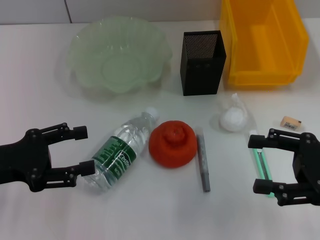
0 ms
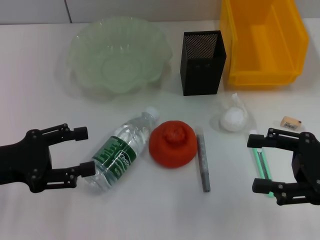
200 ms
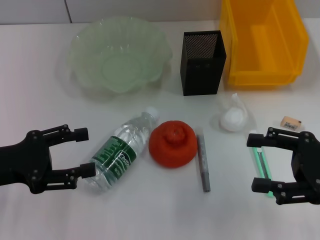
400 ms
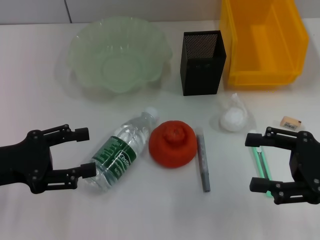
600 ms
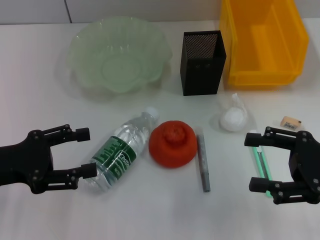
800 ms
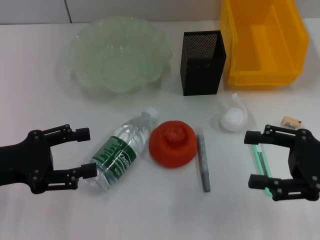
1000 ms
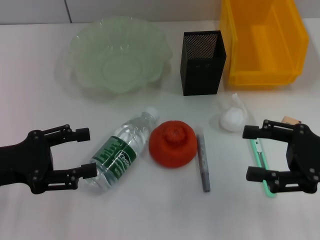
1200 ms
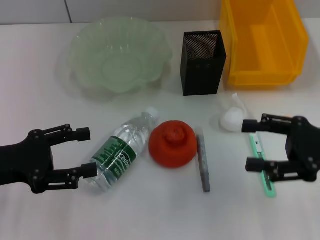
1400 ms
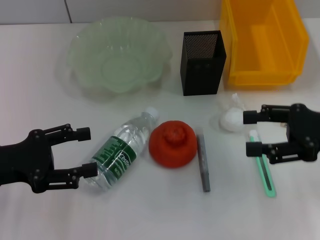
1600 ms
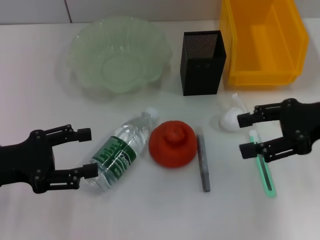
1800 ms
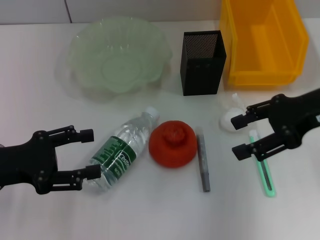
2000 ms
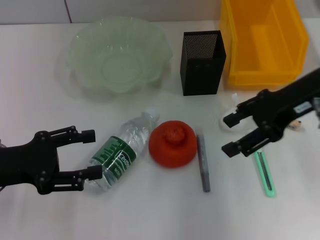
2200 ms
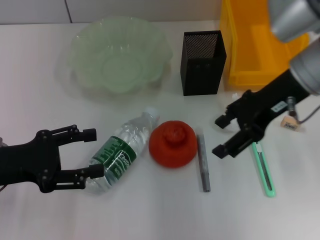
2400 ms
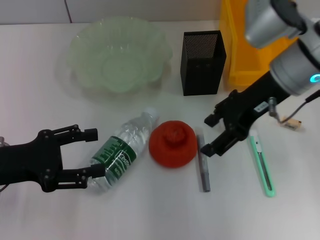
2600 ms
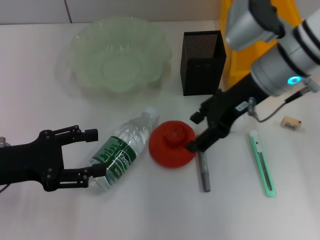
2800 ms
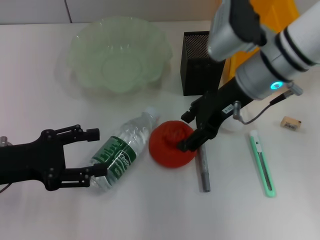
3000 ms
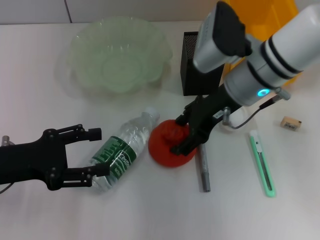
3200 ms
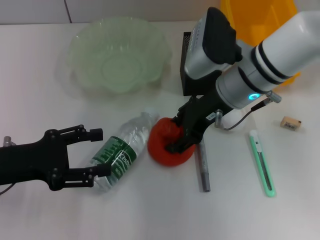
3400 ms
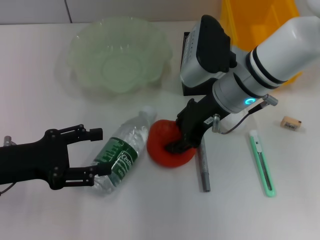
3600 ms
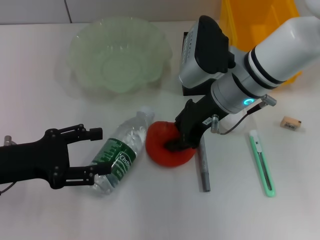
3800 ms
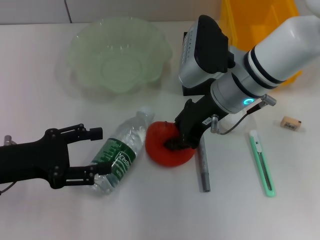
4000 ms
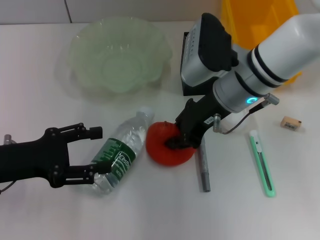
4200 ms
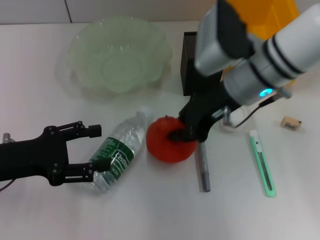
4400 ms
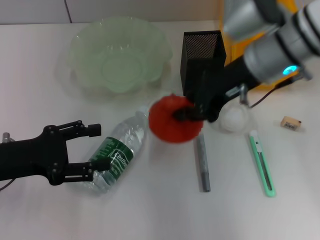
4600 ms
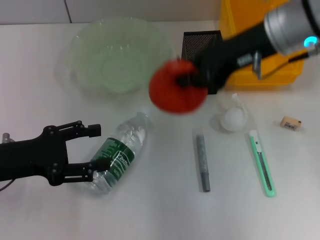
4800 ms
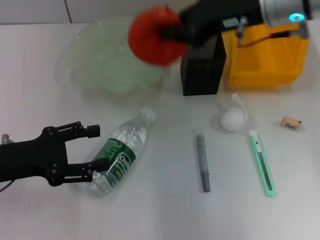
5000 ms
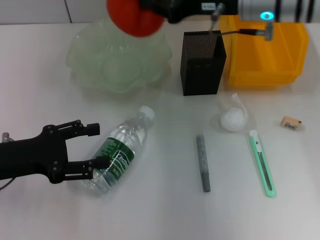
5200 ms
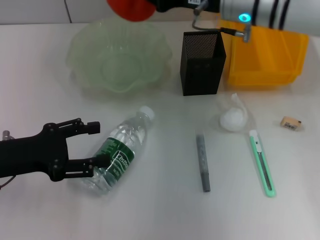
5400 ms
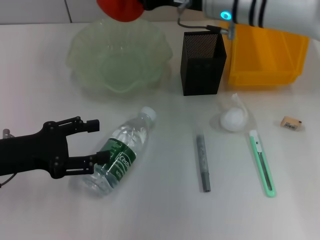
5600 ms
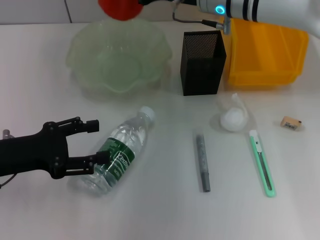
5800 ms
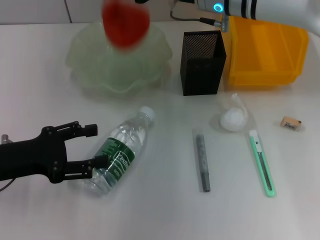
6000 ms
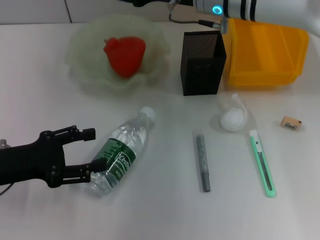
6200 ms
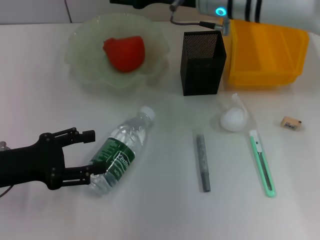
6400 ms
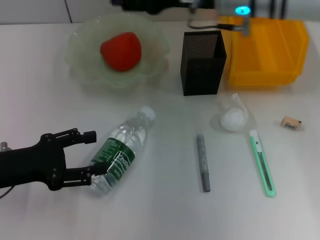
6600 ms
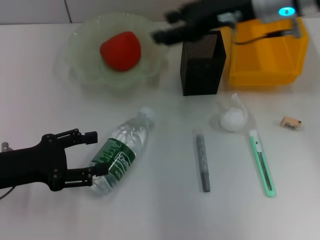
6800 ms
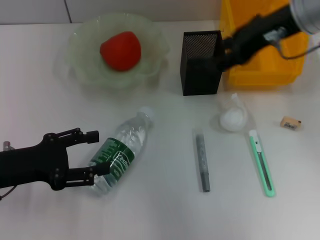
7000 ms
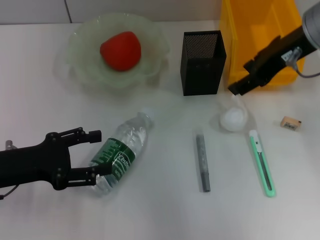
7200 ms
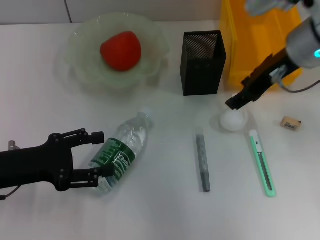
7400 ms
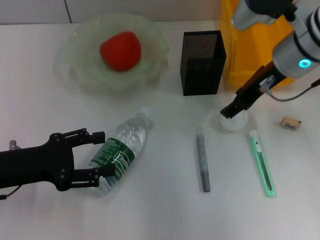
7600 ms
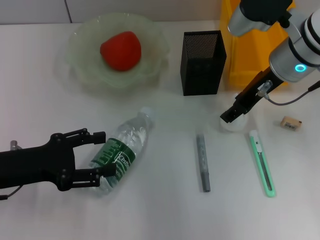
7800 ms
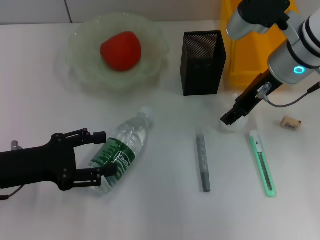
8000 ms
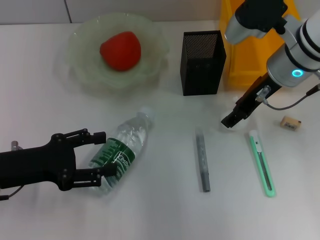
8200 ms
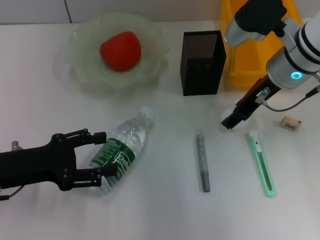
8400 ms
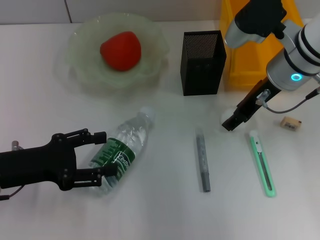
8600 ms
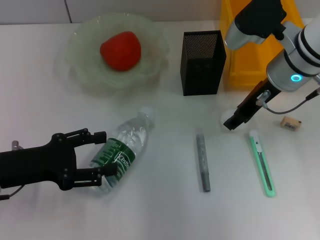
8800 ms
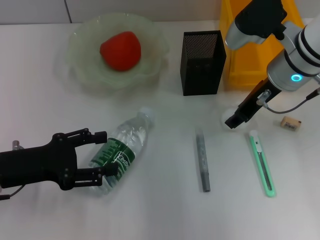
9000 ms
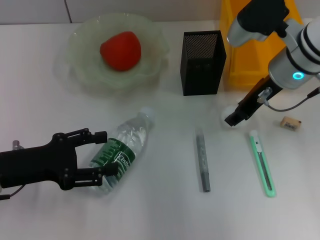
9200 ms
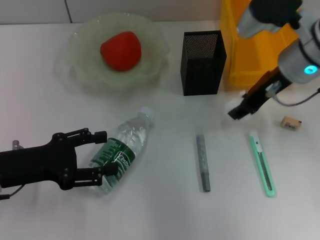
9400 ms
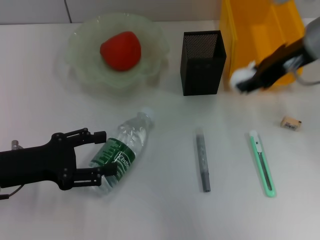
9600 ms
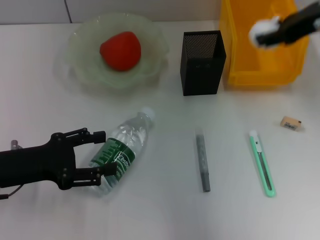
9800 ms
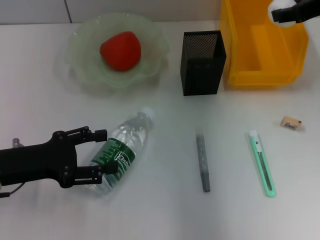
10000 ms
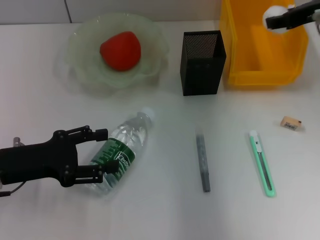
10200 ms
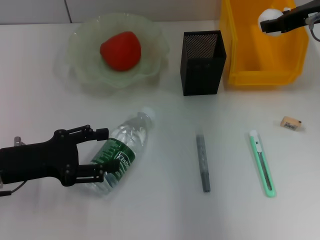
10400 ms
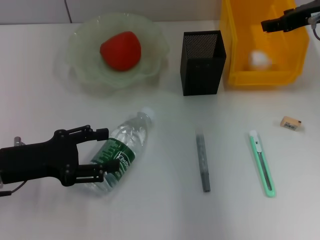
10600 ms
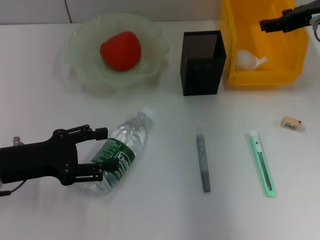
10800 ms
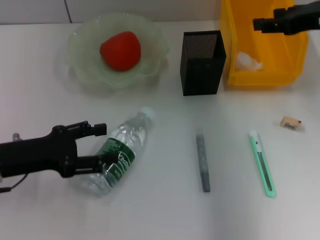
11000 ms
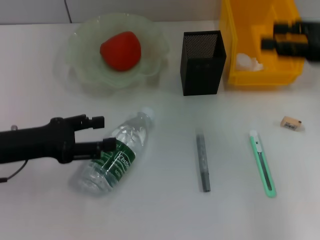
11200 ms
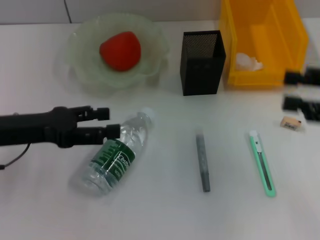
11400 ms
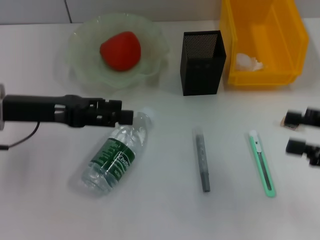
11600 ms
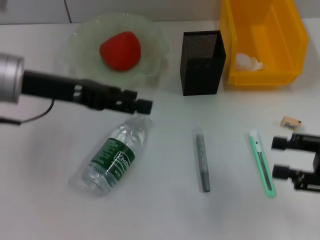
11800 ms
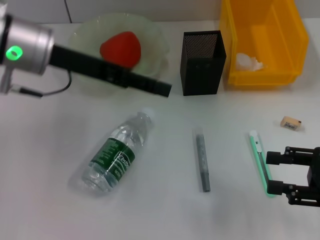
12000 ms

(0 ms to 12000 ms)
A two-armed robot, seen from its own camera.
Step, 0 ms - 3800 ms: Grab the orange with the right hand.
Step, 4000 ms - 6400 ms: Place the orange into the fruit bowl with the right hand.
Step, 6600 ms - 8800 ms: Grab the paper ball with the right hand.
Step, 9000 ms - 10800 ms: Place the paper ball into the trash can with the right hand.
0 ms - 1600 ms: The right gripper heads forward, covering about 5 cm.
1600 ms - 3000 ms: The right gripper is displaced to the left and forward by roughly 20 cm.
3000 ms - 4400 ms: The right gripper closes its fingers.
4400 ms - 6000 ms: The right gripper heads forward, covering roughly 10 cm.
6000 ms - 7600 ms: The right gripper shifts about 10 cm to the right and backward, and opens its fingers.
7600 ms - 9000 ms: The grippers move only a little.
9000 ms - 10400 ms: The right gripper moves to the right and upward, some 10 cm.
10400 ms - 12000 ms: The right gripper goes some 25 cm backward and downward. The left gripper heads upward, forward and to the right, covering some 20 cm.

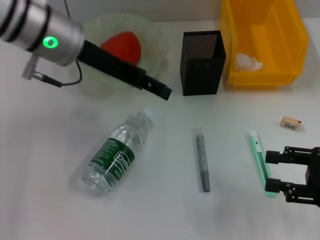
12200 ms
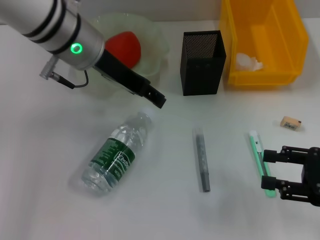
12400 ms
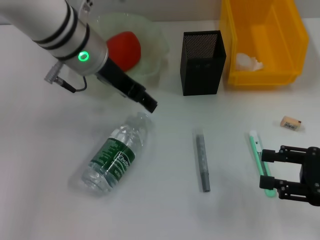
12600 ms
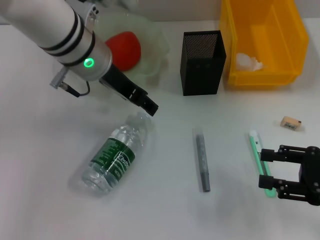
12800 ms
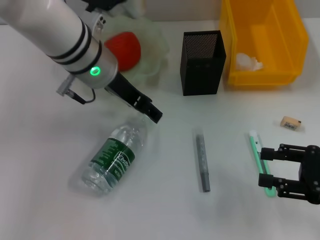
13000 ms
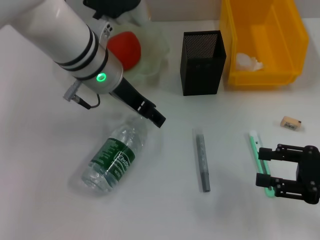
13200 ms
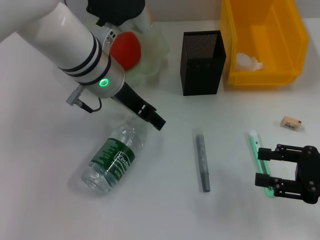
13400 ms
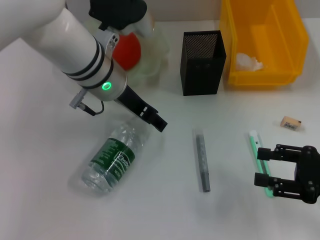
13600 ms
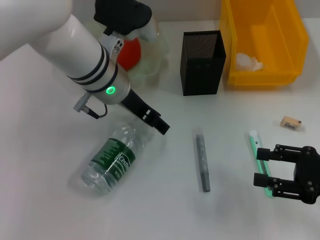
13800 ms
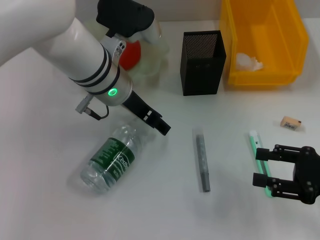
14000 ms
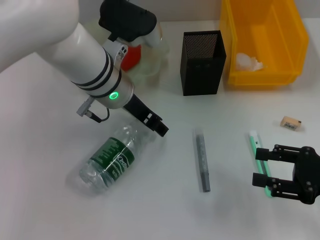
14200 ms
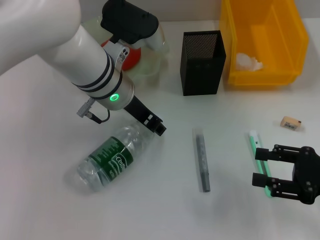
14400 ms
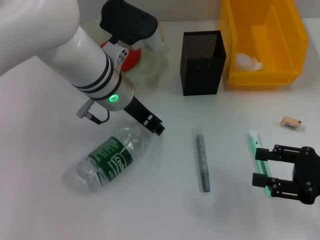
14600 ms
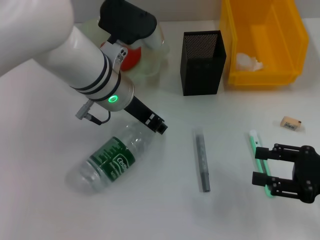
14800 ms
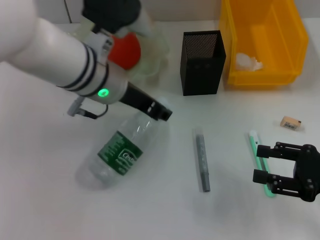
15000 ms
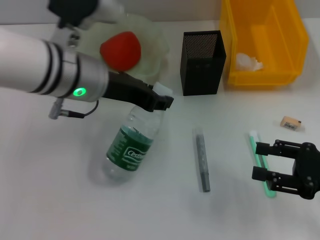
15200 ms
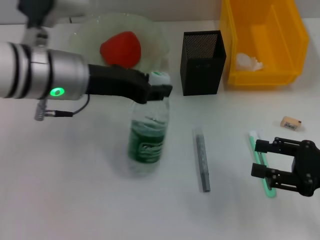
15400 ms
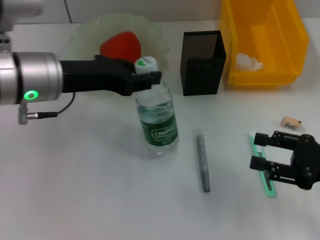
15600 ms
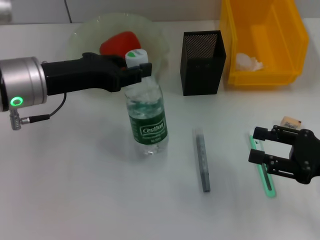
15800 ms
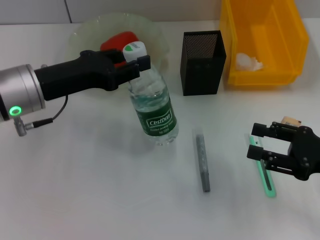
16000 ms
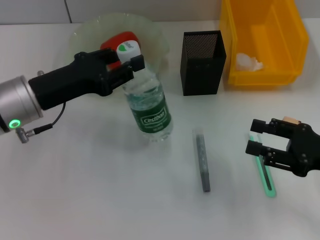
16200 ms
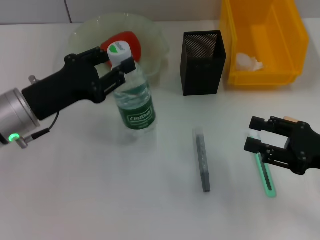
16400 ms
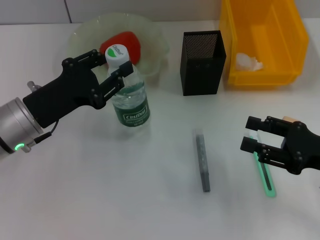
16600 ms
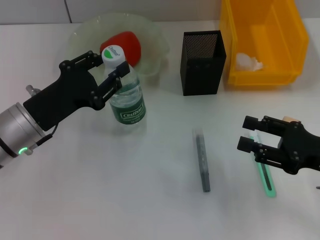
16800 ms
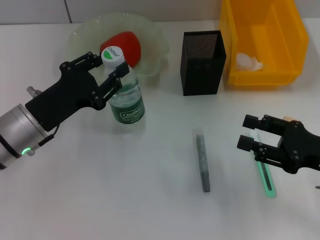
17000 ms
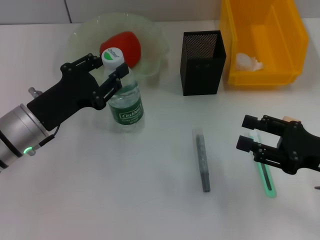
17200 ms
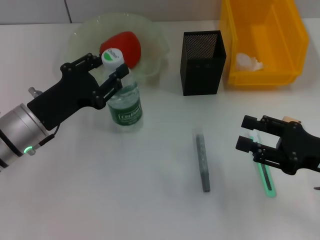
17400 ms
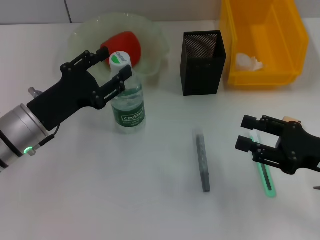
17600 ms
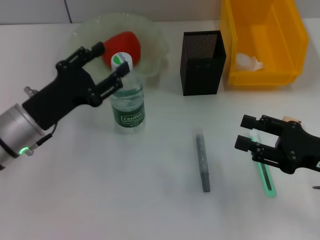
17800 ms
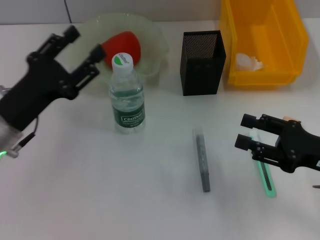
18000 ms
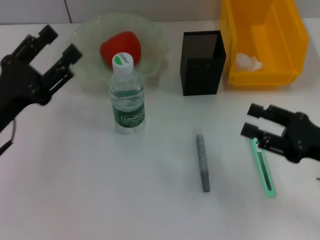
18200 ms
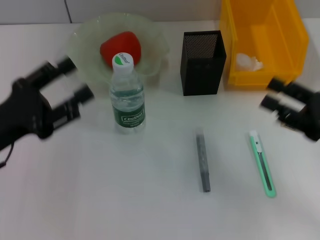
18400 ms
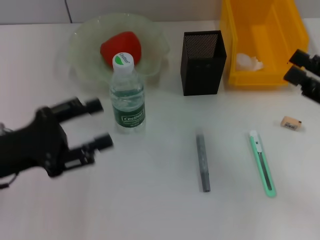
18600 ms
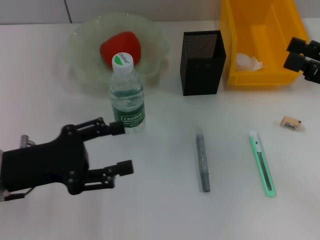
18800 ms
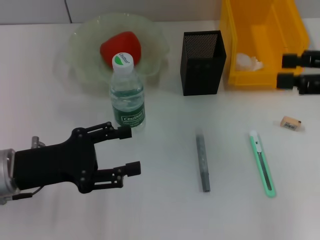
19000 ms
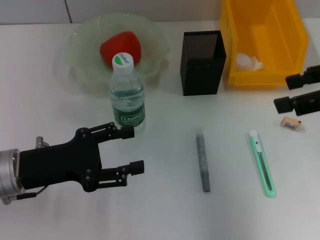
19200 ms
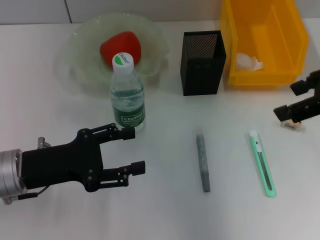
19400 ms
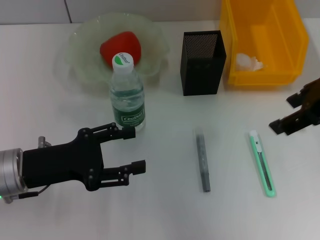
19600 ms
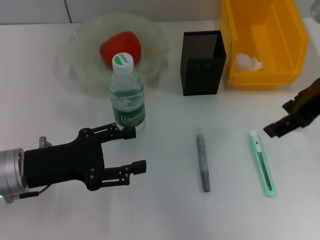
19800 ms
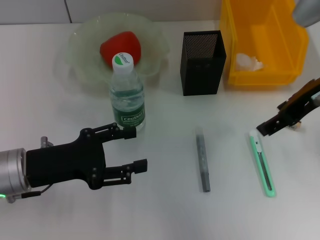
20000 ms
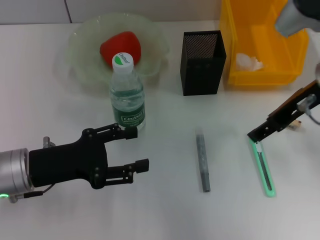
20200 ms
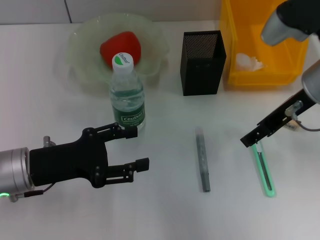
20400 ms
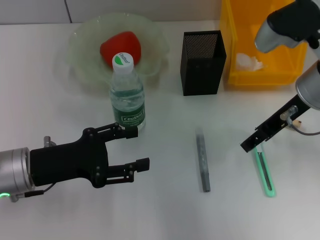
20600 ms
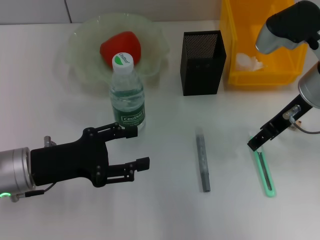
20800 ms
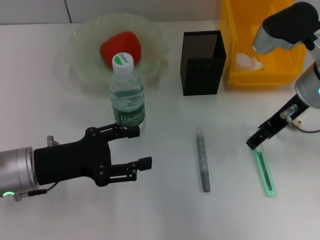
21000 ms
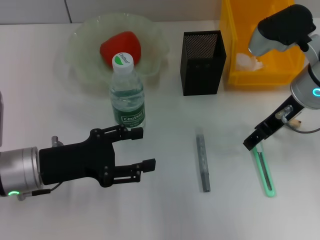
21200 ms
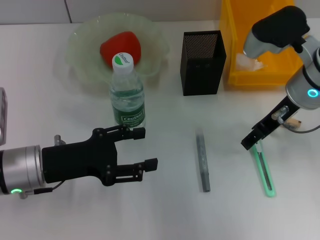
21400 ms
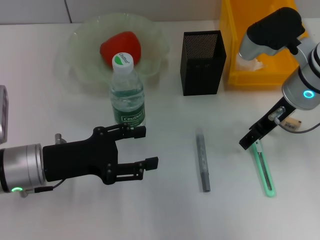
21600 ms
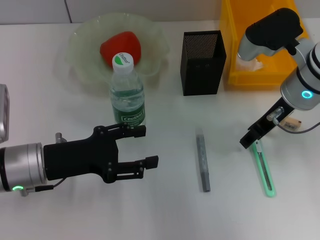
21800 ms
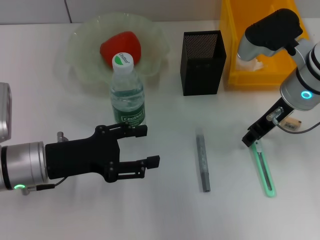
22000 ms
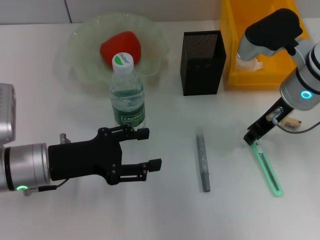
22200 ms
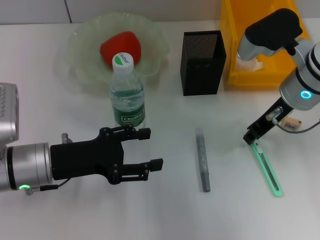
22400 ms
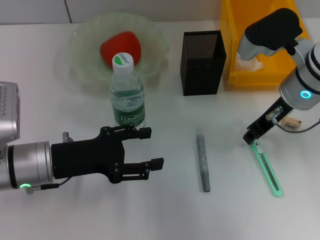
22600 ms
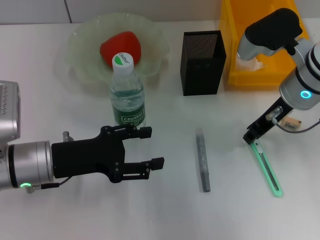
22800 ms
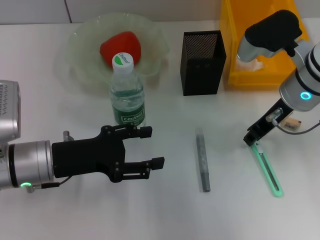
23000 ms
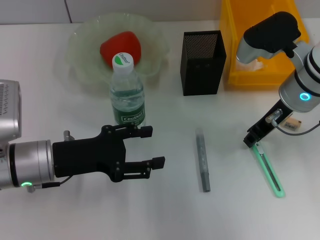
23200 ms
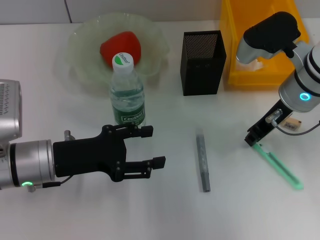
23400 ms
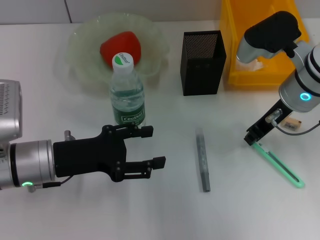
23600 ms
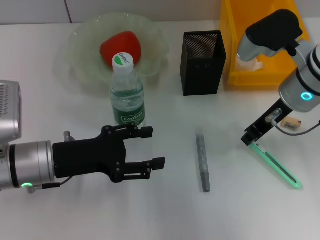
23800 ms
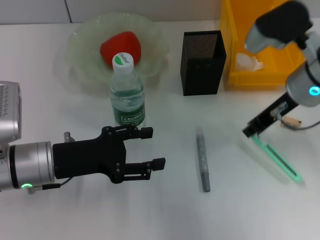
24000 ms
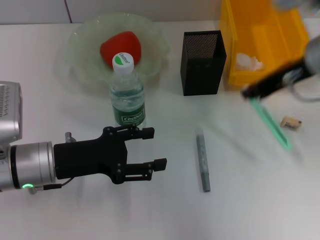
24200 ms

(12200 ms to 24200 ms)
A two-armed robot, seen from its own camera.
Step, 12200 ms - 14400 ms: Grab the water bottle with the left hand.
Step, 14600 ms - 17800 ms: Place the water bottle on the table with the left hand.
Step, 18200 ms - 23400 ms: Grab the blue utility knife with the right hand.
12200 ms - 13800 ms: The left gripper shifts some 10 cm downward and to the right.
13800 ms - 15200 ms: The left gripper moves about 5 cm, and closes.
15200 ms - 16600 ms: The left gripper shifts some 15 cm to the left and downward.
16600 ms - 18200 ms: The left gripper ends up about 5 cm from where it was, and opens.
18200 ms - 19800 ms: The right gripper moves upward and forward, about 20 cm.
19800 ms - 21200 ms: The right gripper moves downward, some 10 cm.
21200 ms - 22600 ms: The right gripper closes.
22600 ms - 24200 ms: The right gripper shifts some 5 cm upward.
